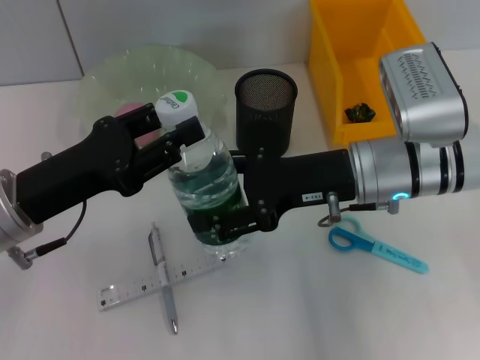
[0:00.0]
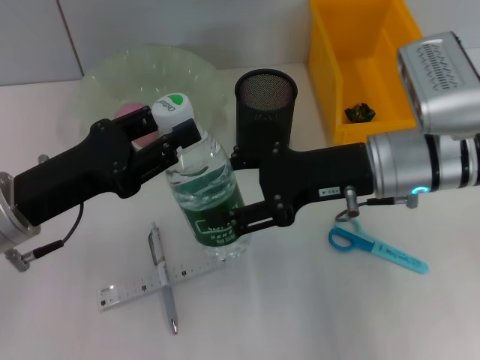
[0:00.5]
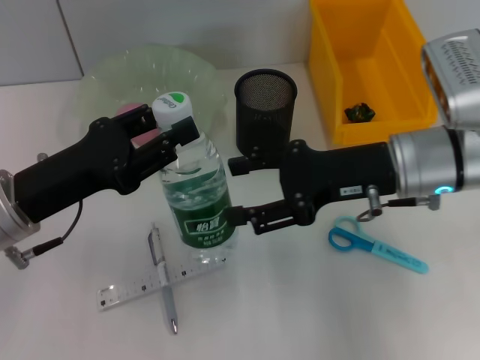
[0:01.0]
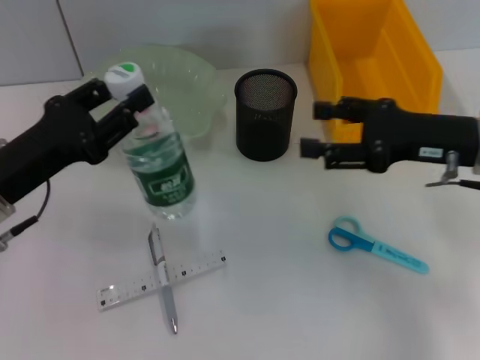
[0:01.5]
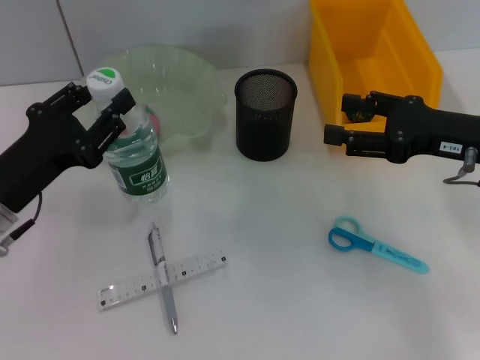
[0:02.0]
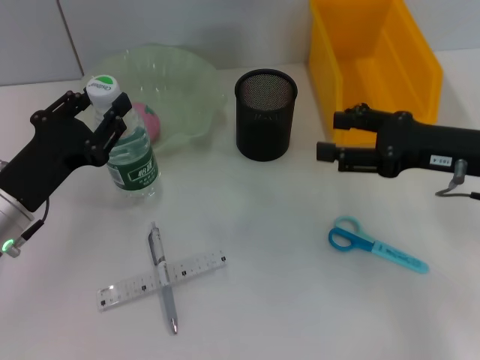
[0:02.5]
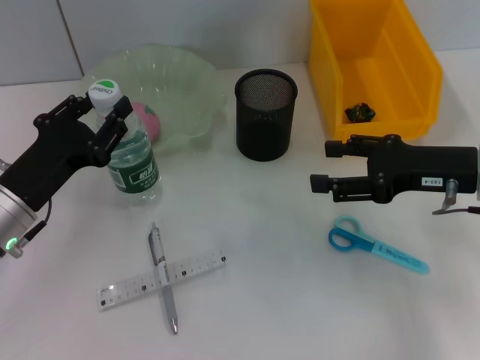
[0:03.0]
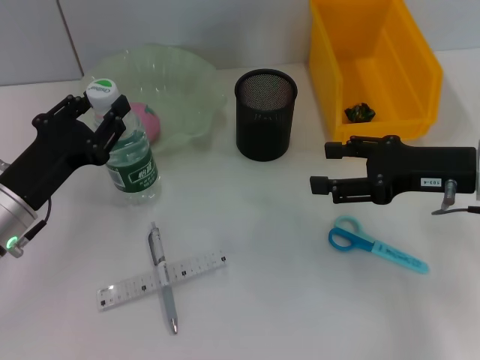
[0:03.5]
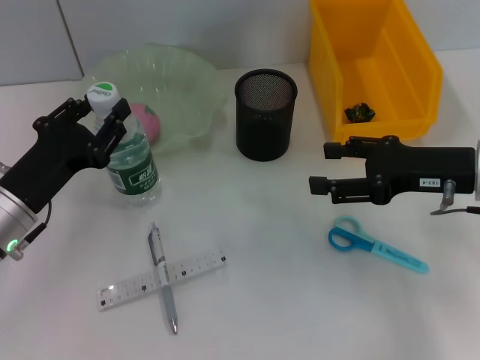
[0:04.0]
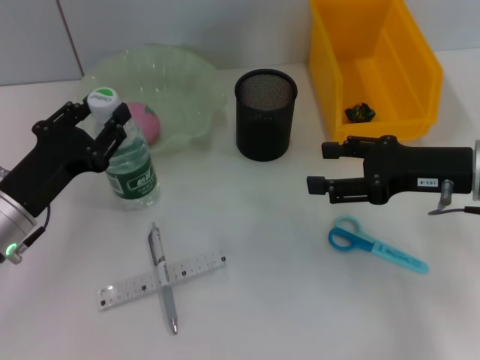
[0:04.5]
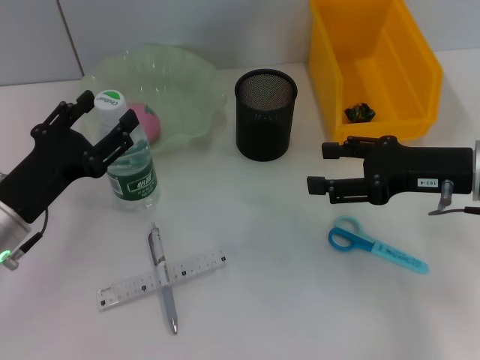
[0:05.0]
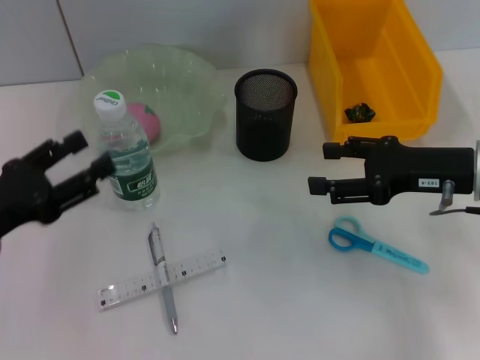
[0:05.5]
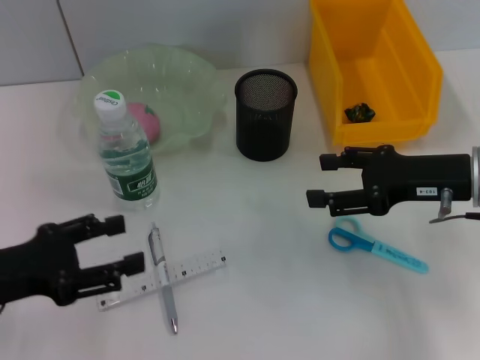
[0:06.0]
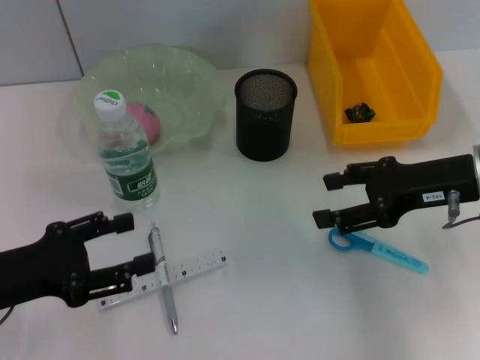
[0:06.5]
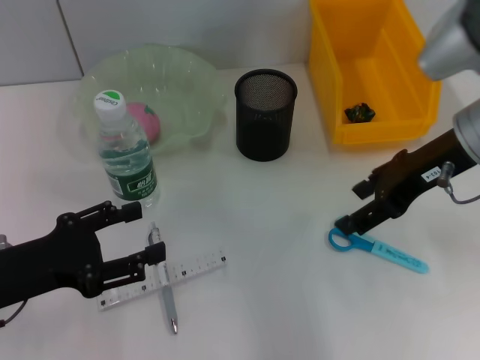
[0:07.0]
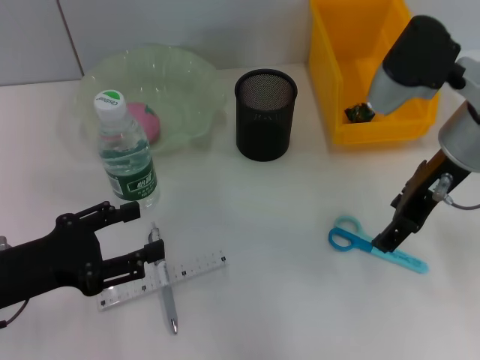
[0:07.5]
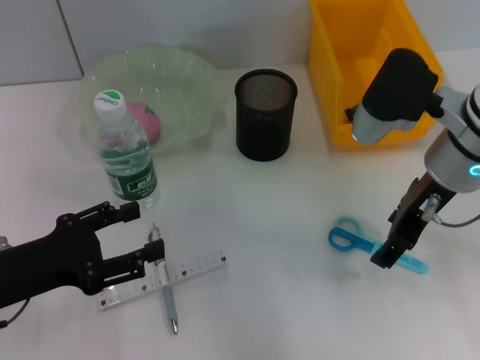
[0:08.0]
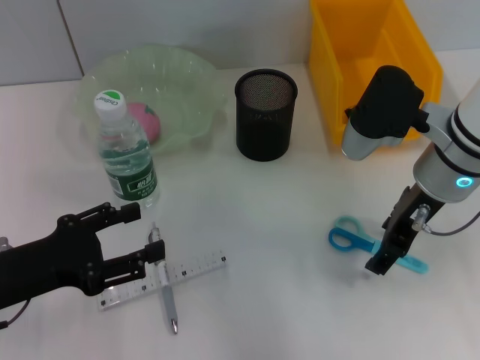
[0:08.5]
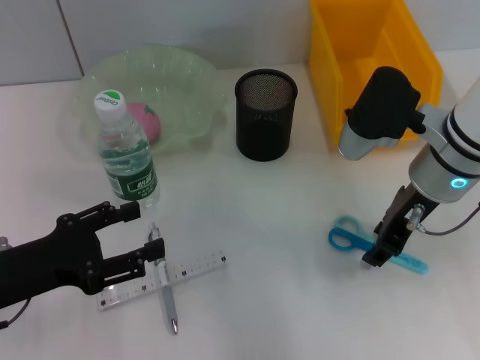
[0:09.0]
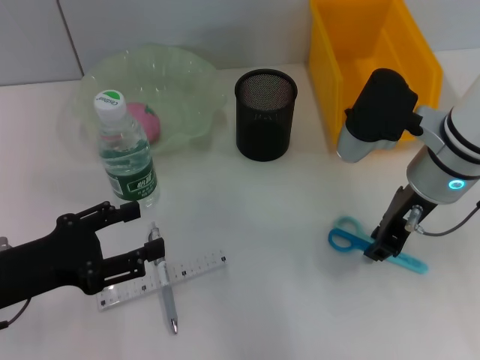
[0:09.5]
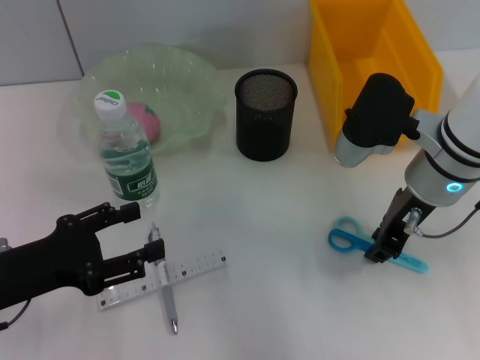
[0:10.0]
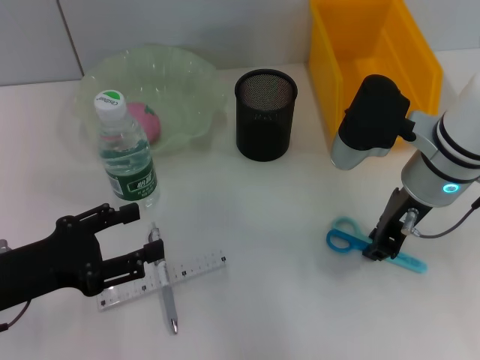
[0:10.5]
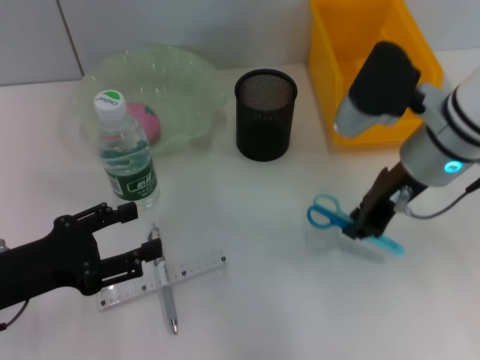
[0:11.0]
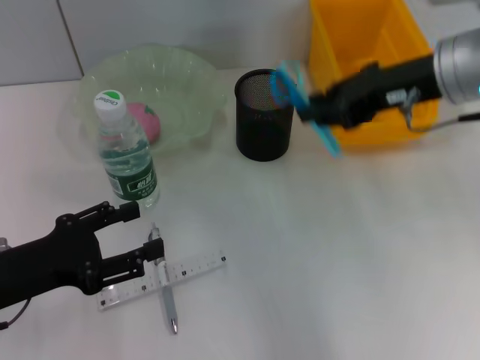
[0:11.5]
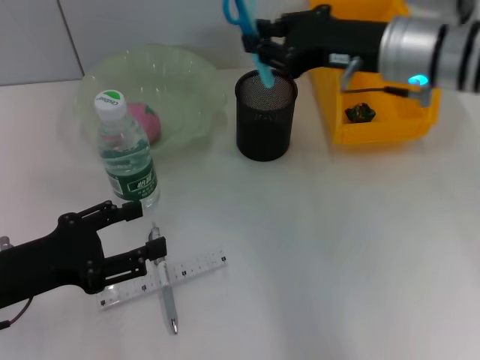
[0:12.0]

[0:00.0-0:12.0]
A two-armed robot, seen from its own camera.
Step, 0:01.0 to 0:05.0: Place the water bottle on the table with the left hand.
Step, 0:05.5 to 0:10.0: Grab the blue scissors with the right hand.
0:00.0 to 0:02.0: The right gripper shifts approximately 15 cm to the right.
0:02.0 to 0:04.0: The grippers stay close to where they were, moving slightly.
0:04.0 to 0:06.0: The left gripper heads backward and to the left, covering approximately 10 cm, and opens.
0:06.0 to 0:08.0: The right gripper heads to the left, covering some 5 cm.
0:08.0 to 0:10.0: The right gripper closes.
0:10.0 to 0:12.0: The right gripper heads upward, covering approximately 5 cm.

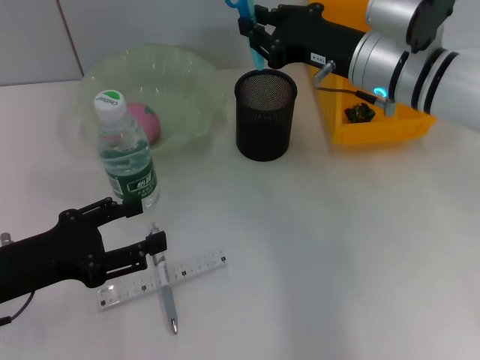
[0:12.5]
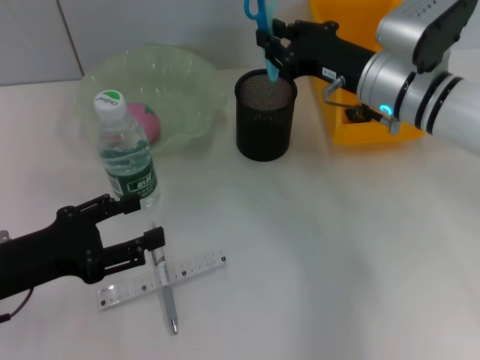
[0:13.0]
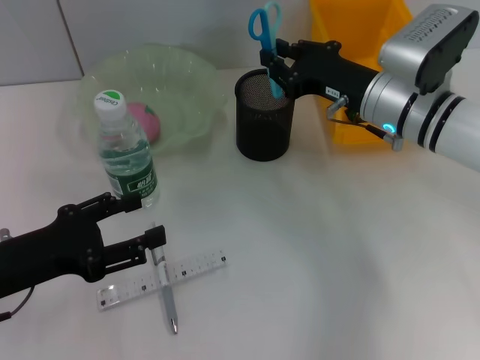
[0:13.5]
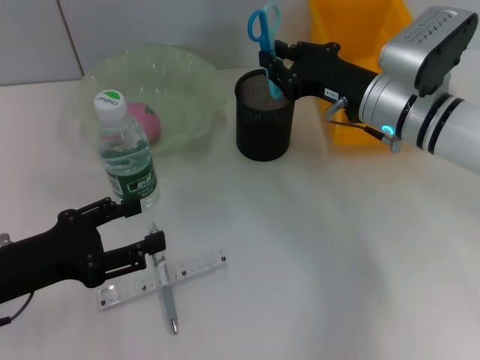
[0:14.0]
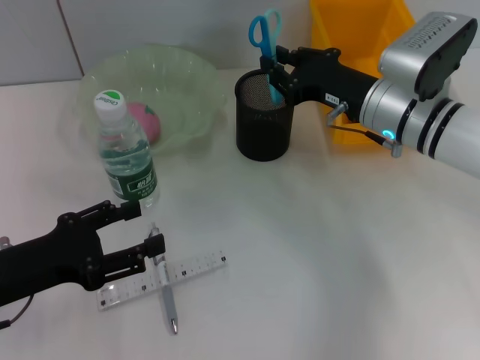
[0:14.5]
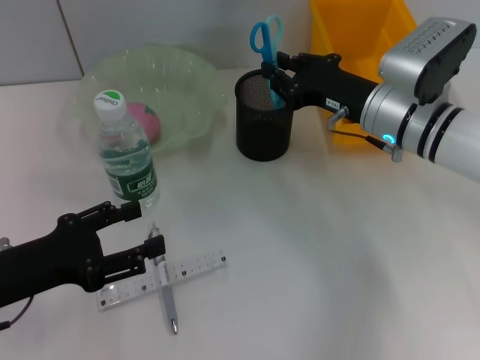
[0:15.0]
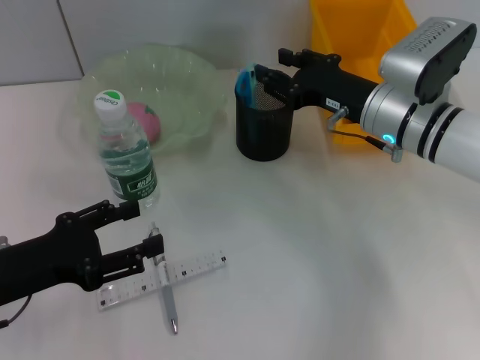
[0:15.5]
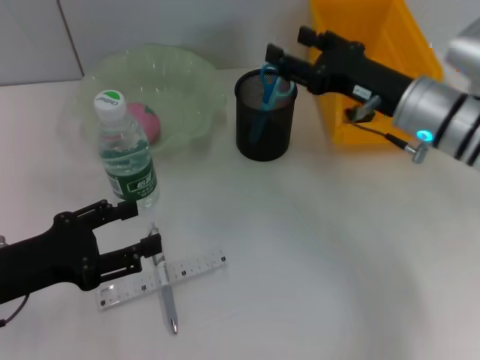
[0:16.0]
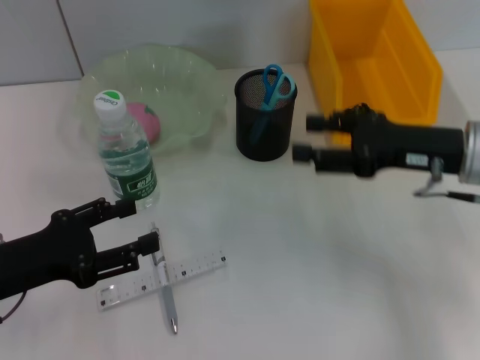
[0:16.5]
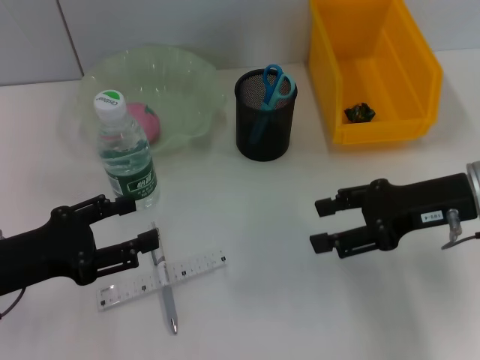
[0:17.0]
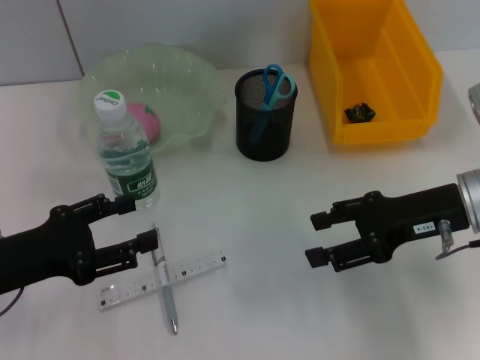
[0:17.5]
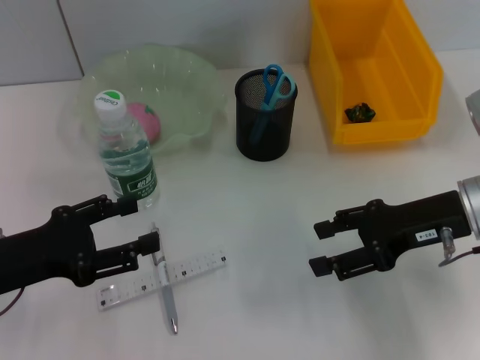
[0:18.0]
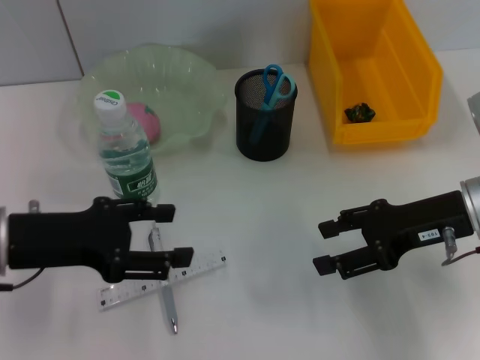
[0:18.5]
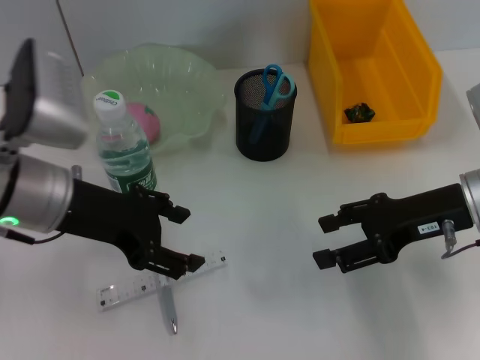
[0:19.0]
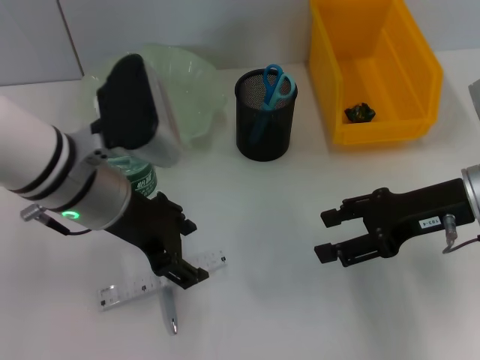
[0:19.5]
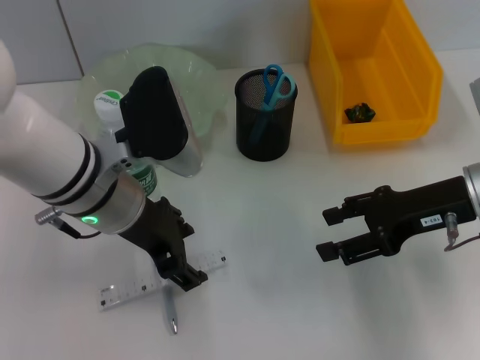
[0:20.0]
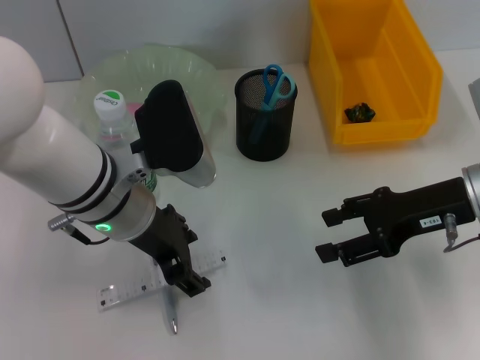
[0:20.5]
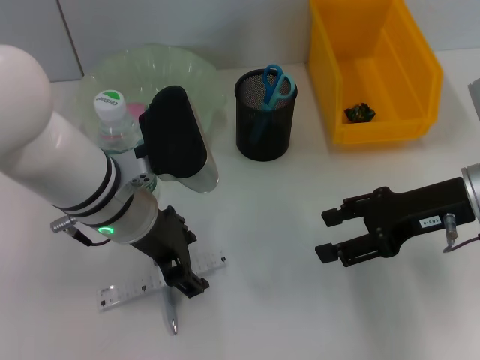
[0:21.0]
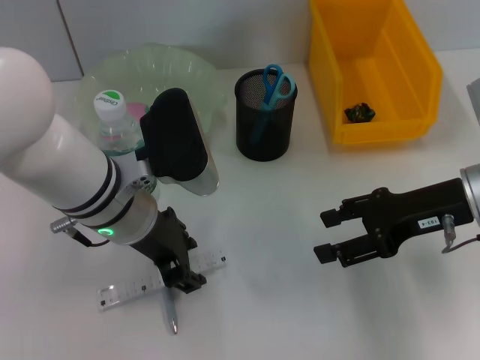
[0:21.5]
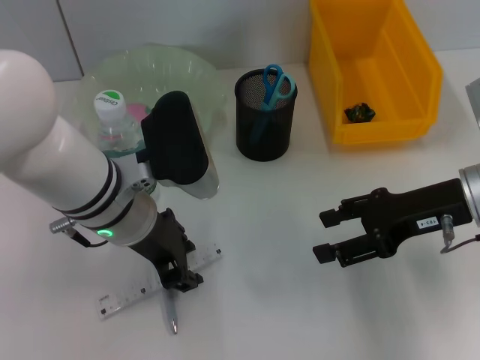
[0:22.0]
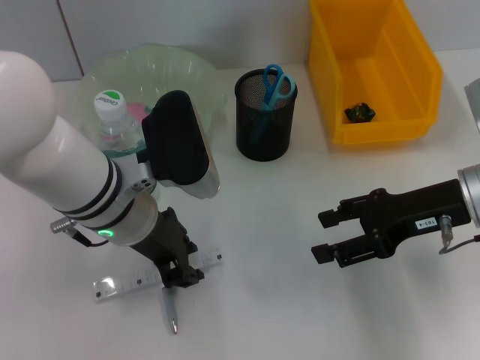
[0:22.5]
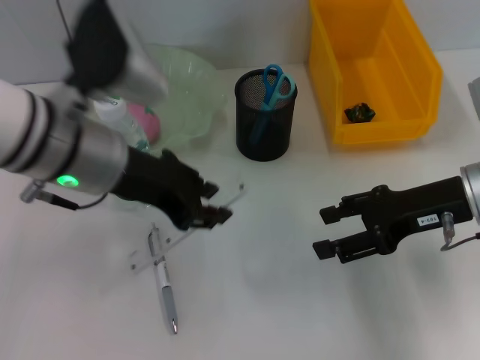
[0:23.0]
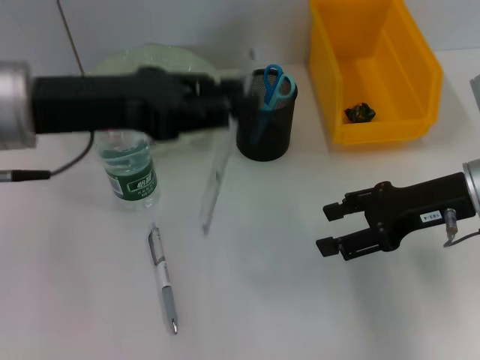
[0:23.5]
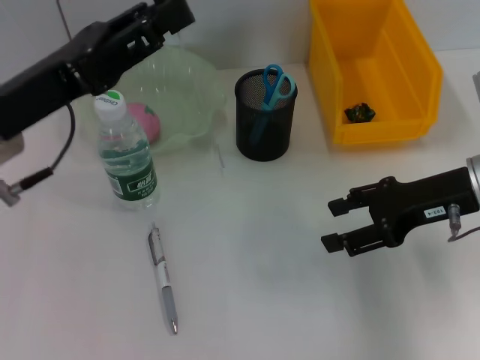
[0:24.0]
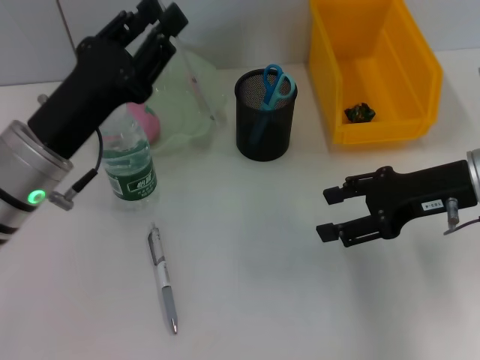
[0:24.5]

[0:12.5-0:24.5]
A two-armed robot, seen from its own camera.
Step, 0:12.5 to 0:15.5: Place the blue scissors into the pen holder with the right hand.
Step, 0:16.0 to 0:22.0: Grab the ruler with the left hand.
0:12.5 to 0:14.5: There are only small adjustments of the grippers.
0:14.5 to 0:16.5: The right gripper goes roughly 10 cm to the right and backward, and opens.
0:16.5 to 0:18.5: The left gripper shifts by roughly 5 cm.
0:18.5 to 0:20.5: The left gripper travels to the right by roughly 15 cm.
0:20.5 to 0:22.5: The left gripper closes up.
0:22.5 to 0:24.5: The left gripper travels to the left by roughly 10 cm, and reaches approximately 10 cm upward, then returns.

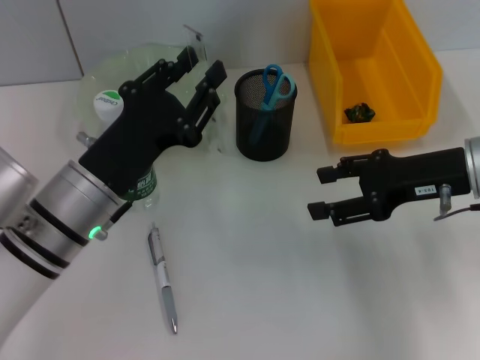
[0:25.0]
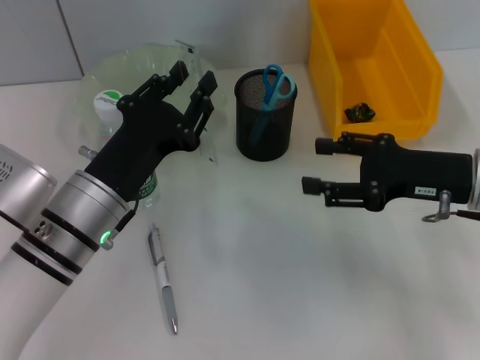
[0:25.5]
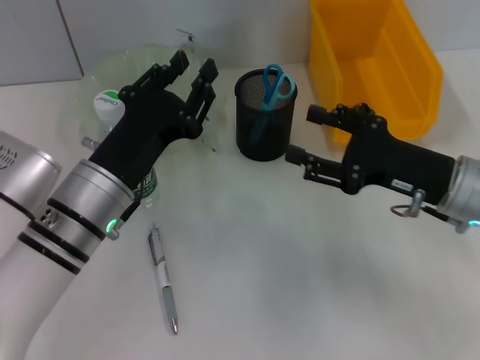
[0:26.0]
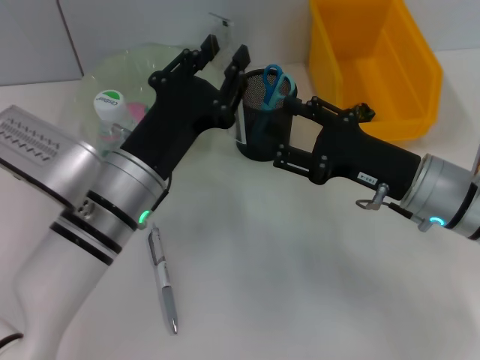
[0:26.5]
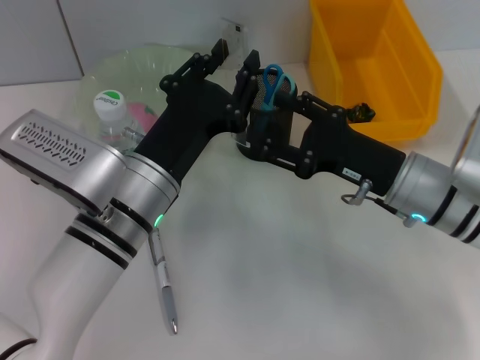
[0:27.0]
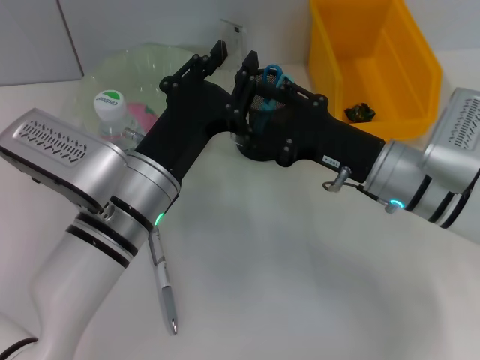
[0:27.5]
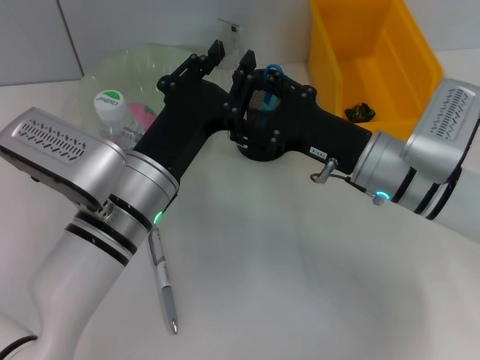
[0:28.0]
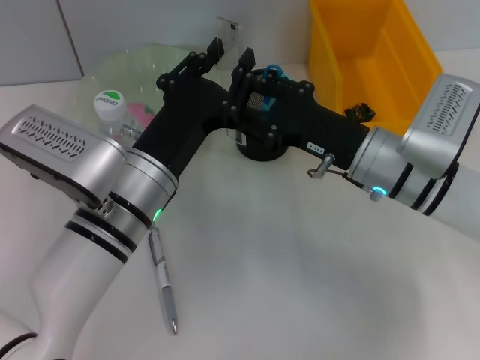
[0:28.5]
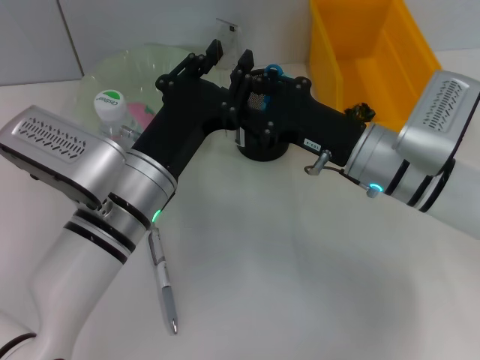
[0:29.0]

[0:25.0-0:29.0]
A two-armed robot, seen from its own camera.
0:25.0 to 0:27.0: The left gripper moves to the right, about 5 cm, while the right gripper shifts approximately 10 cm to the left and downward.
0:27.0 to 0:29.0: The right gripper closes its fingers.
